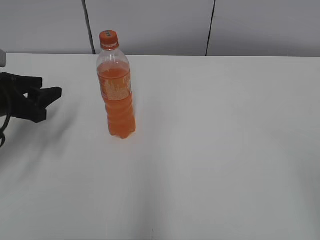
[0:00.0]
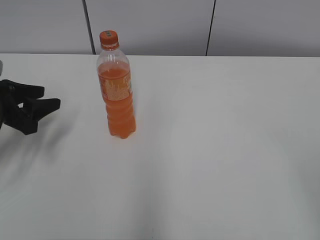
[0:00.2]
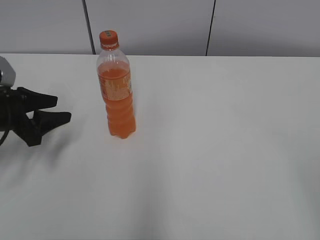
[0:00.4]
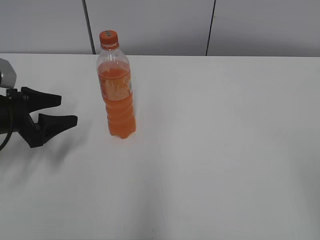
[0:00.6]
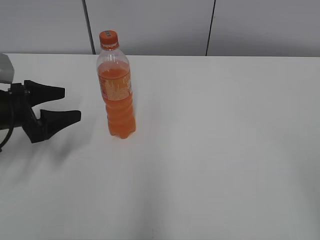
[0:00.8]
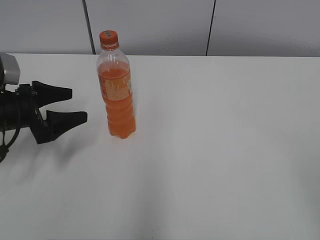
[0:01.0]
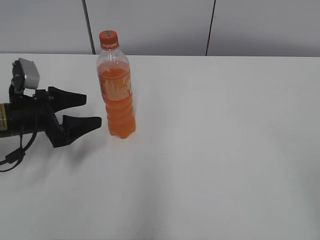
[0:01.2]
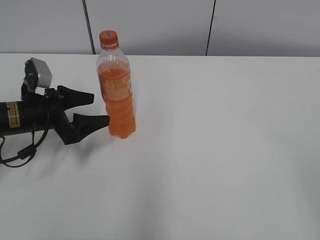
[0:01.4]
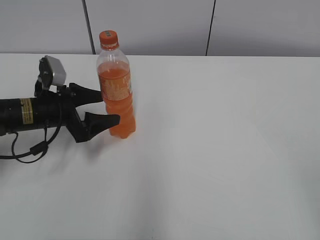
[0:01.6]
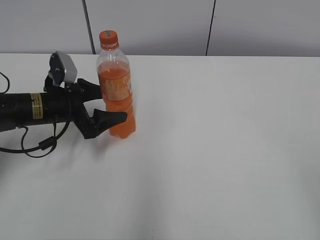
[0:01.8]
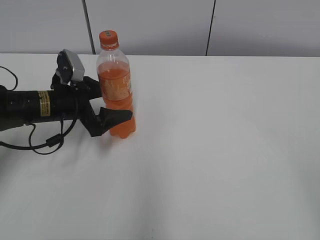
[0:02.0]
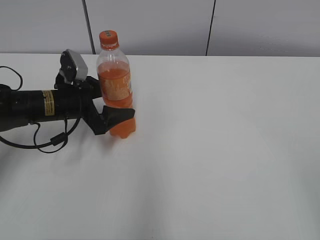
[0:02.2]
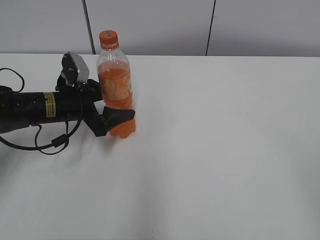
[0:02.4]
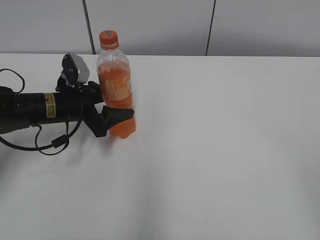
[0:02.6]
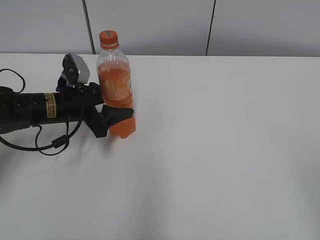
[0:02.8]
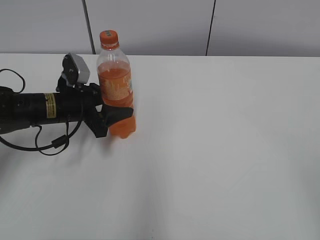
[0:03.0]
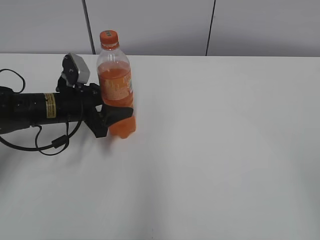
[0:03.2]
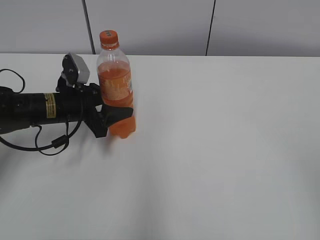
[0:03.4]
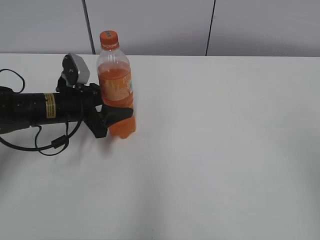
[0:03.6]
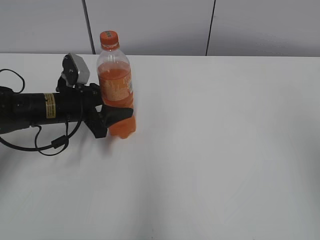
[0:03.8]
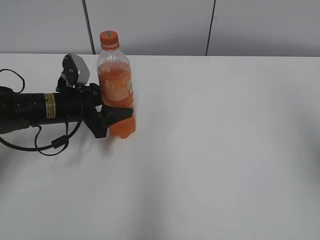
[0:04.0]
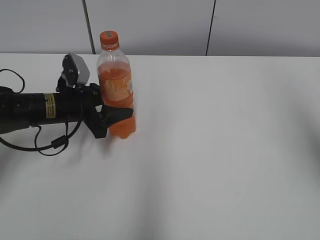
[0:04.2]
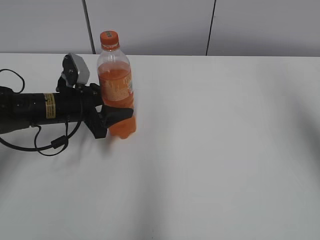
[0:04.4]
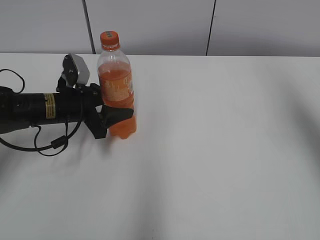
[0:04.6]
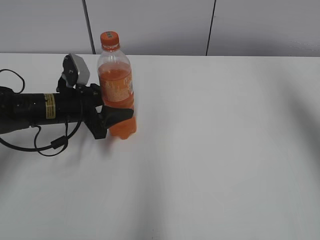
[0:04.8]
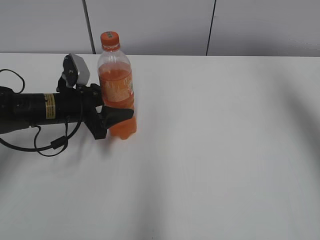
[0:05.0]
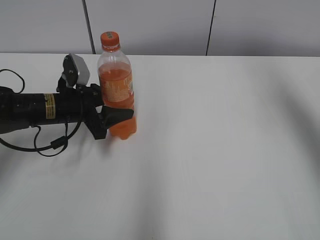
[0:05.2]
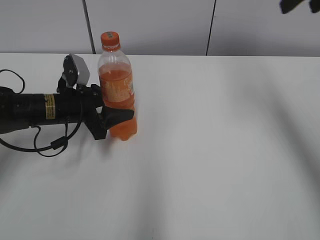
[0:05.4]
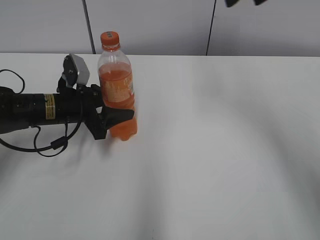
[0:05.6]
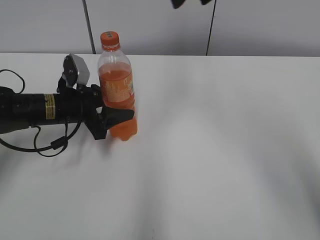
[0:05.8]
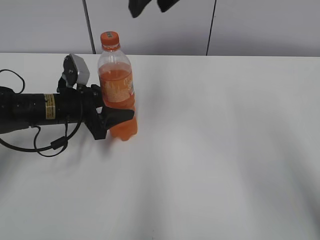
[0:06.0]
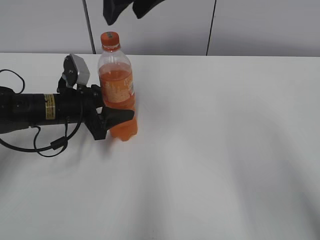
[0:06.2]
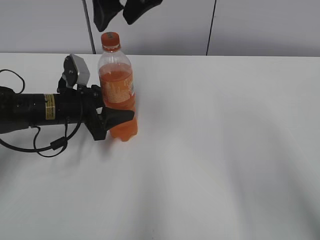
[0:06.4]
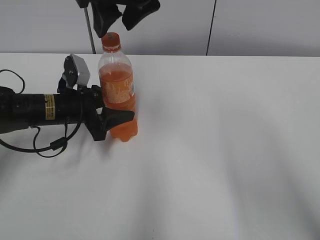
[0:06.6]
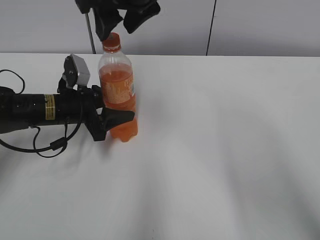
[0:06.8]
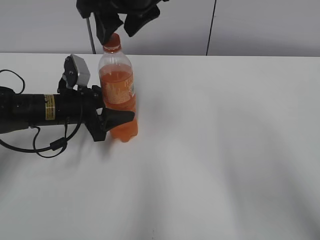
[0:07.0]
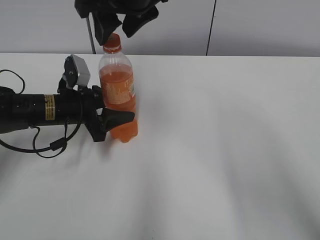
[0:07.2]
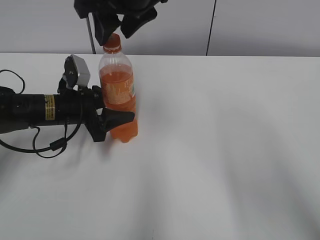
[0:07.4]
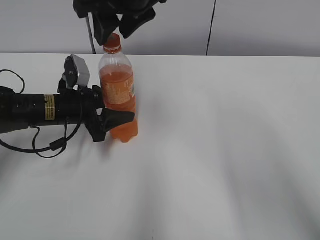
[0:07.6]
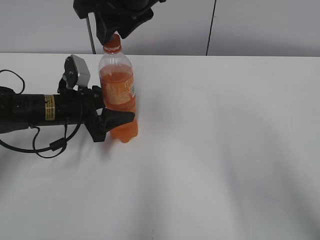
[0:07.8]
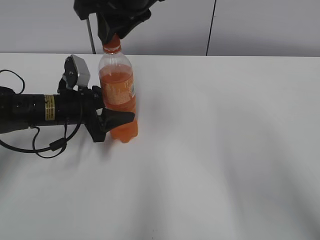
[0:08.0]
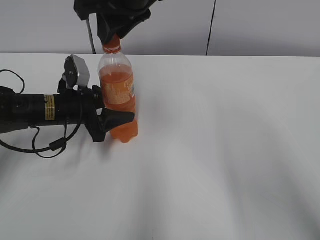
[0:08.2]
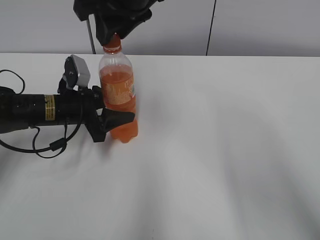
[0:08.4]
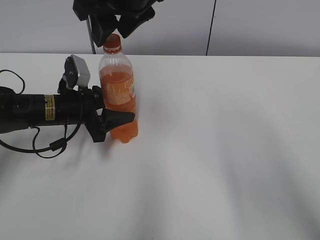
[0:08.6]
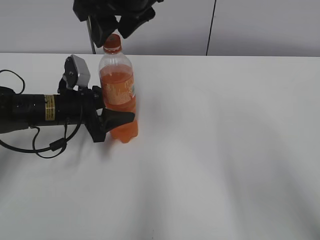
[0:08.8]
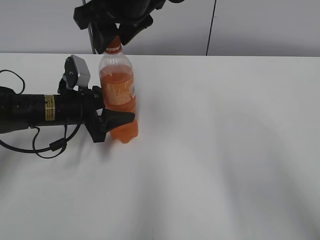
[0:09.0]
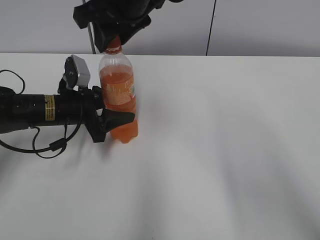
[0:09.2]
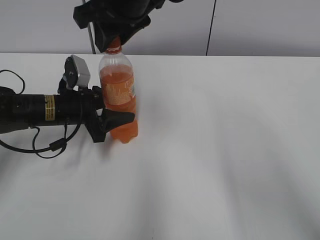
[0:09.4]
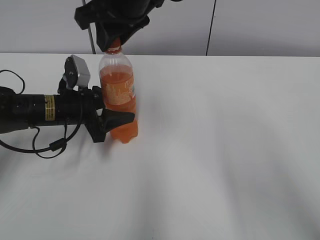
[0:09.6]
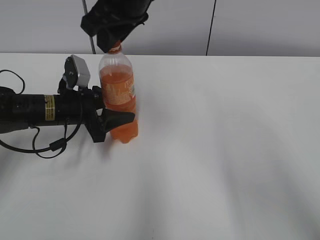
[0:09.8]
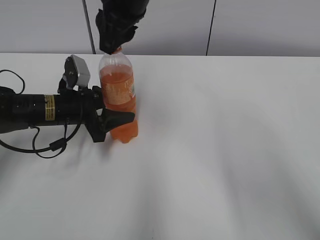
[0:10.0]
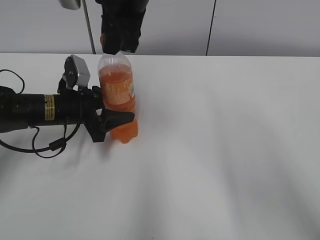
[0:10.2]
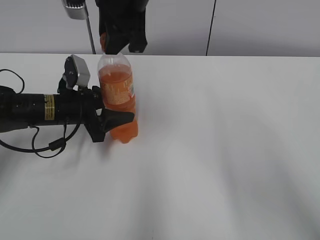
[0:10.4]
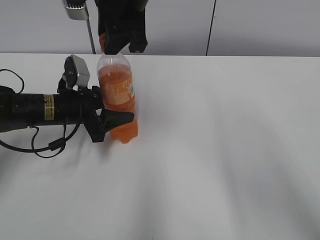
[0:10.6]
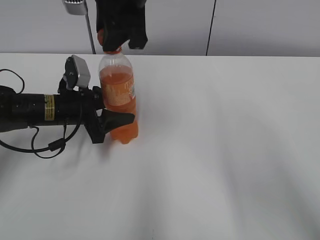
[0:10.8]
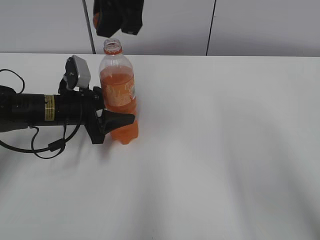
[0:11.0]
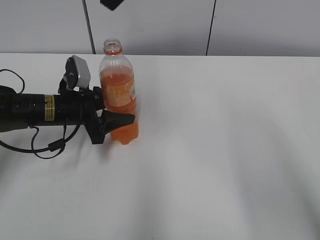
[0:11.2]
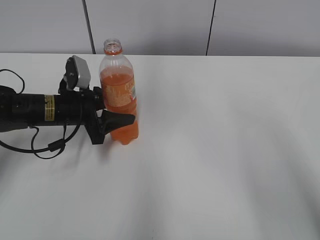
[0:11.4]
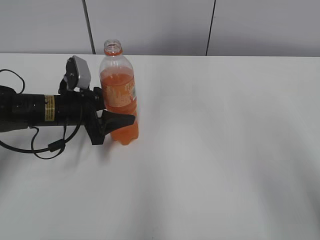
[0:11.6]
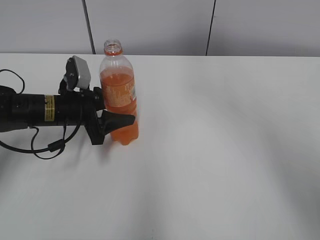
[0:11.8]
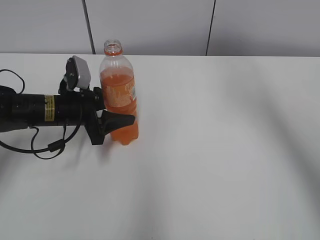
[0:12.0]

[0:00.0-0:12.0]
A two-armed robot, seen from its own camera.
Step, 0.0 to 3.2 s: Grab the Mirinda with the left hand.
0.0 to 1.6 s: The left gripper travels to the right by some 5 cm, and opens up.
1.6 to 3.0 s: The left gripper closes up.
3.0 to 4.4 s: The right gripper travels forward and upward by approximately 25 cm.
4.4 to 6.0 s: The right gripper is displaced to the left and forward by some 30 cm.
6.0 to 7.6 s: The right gripper travels to the left by approximately 5 cm.
7.6 to 9.0 s: The right gripper closes, then reopens.
9.0 to 10.4 s: The right gripper closes its fingers.
10.4 to 12.0 s: The right gripper goes roughly 25 cm to the right and upward.

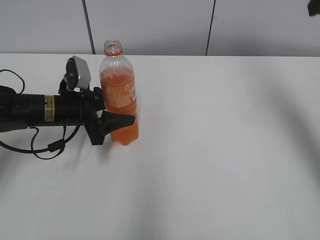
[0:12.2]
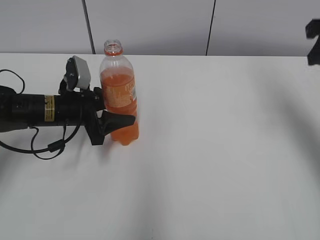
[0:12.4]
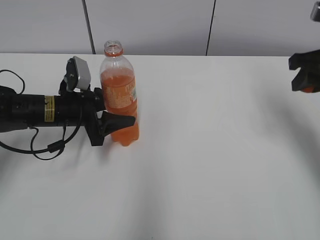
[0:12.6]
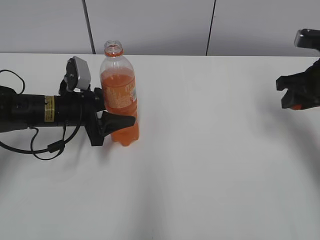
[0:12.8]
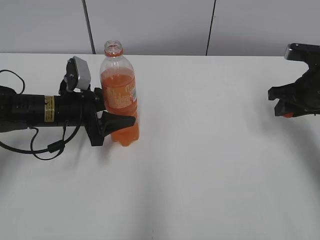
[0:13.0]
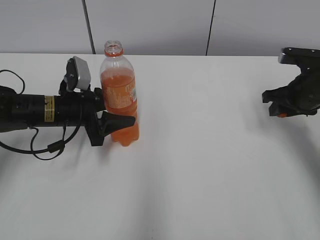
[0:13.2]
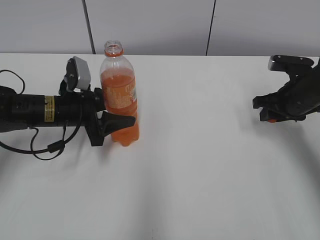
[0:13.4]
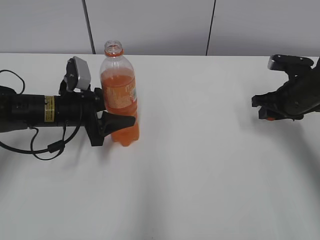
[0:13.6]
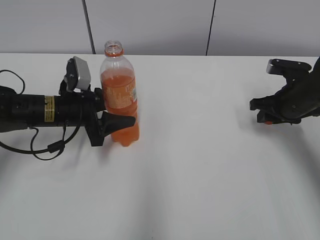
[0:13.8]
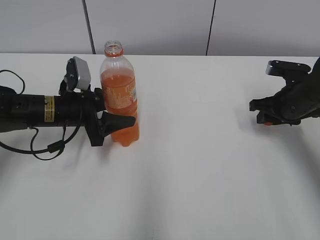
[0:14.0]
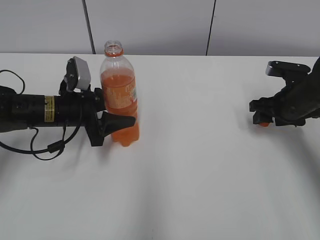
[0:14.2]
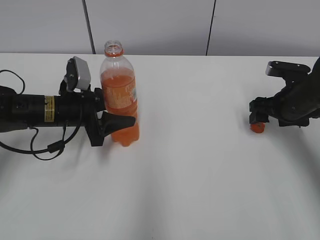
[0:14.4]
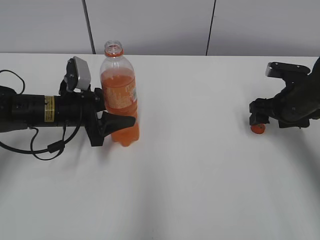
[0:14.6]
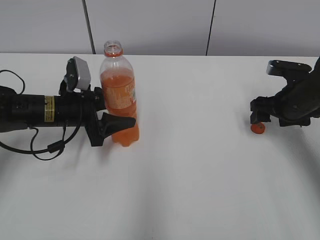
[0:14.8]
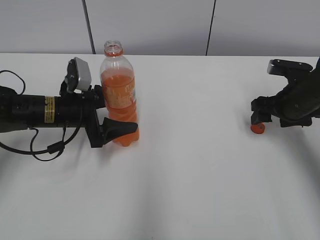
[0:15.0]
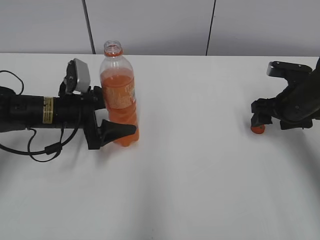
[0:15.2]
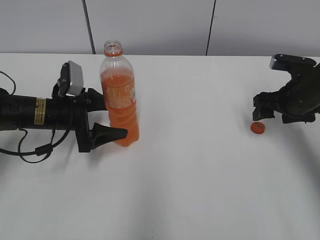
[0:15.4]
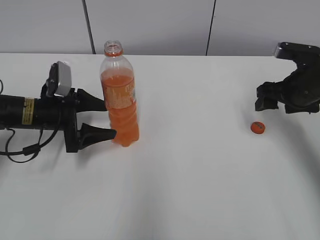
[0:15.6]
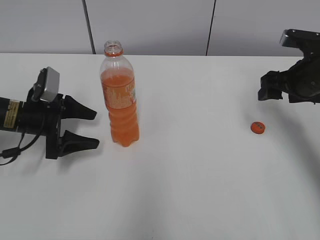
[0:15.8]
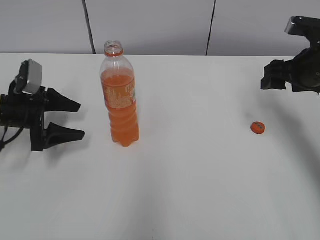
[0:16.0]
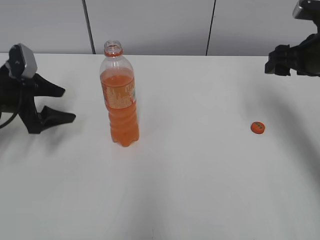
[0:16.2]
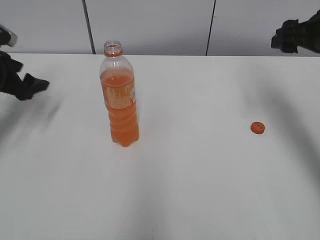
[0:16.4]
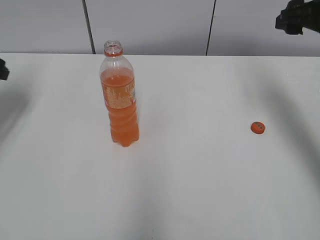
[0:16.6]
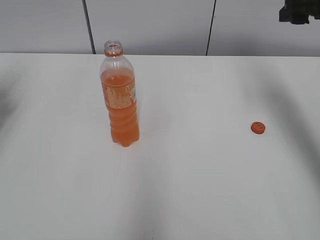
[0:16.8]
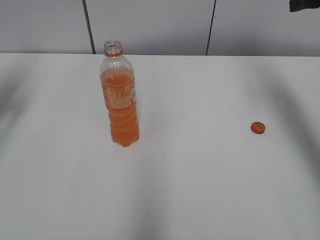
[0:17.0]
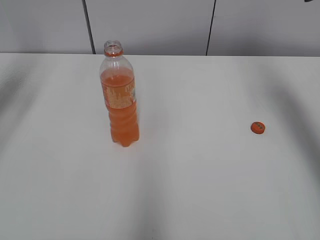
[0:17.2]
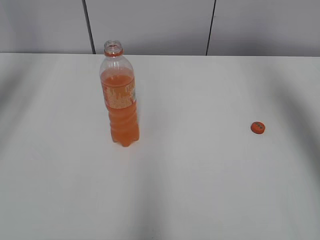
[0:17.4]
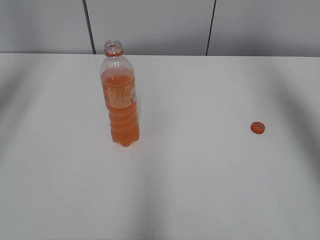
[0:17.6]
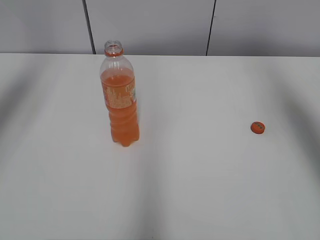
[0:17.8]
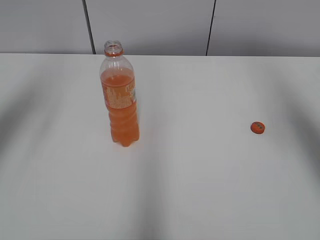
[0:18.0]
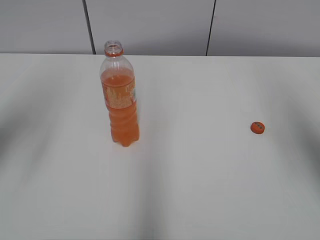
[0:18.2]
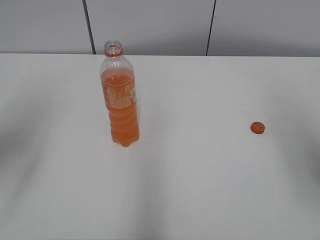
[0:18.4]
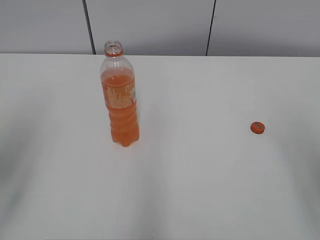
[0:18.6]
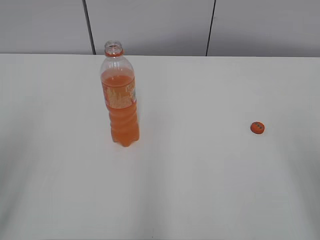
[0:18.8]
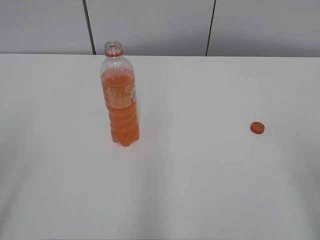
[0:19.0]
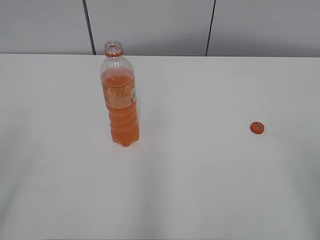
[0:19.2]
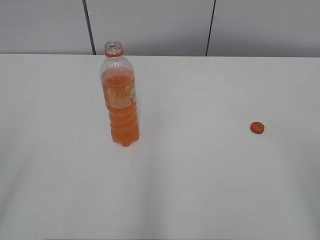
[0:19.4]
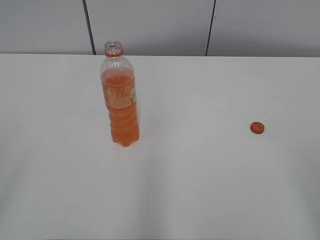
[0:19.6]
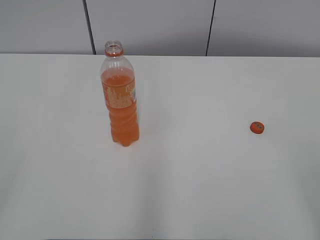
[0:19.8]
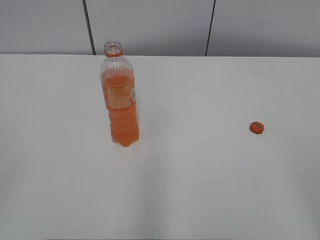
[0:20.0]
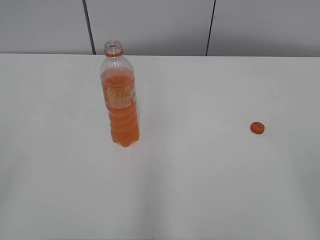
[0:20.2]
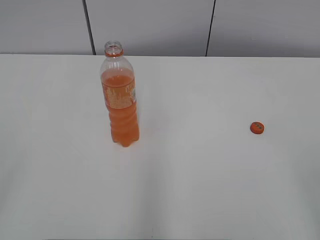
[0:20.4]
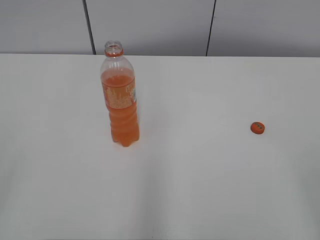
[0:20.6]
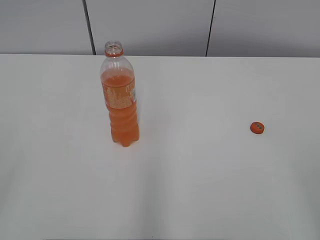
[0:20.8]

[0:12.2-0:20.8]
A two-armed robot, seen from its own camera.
Step, 12.2 to 14.4 s: Place the bottle cap on the right.
12.2 to 13.6 s: The right gripper is displaced downward by about 25 cm.
13.6 to 15.0 s: The right gripper opens. The left gripper opens its fingers.
15.0 to 16.6 s: The right gripper shifts about 15 cm upward. The left gripper is displaced to the left and upward by about 20 cm.
16.6 to 18.0 s: The right gripper moves upward and backward, approximately 15 cm. Meanwhile the left gripper goes roughly 20 cm upward, to the right and backward.
18.0 to 19.4 s: The right gripper moves backward and downward, roughly 25 cm; the left gripper shifts about 25 cm backward.

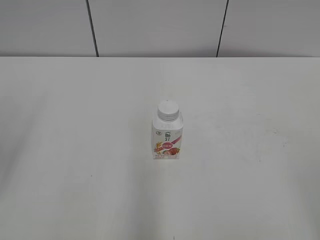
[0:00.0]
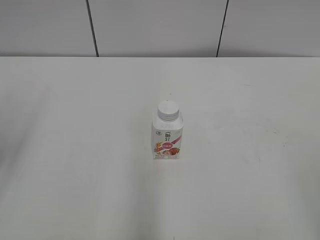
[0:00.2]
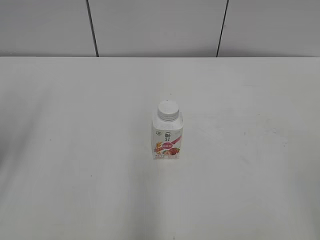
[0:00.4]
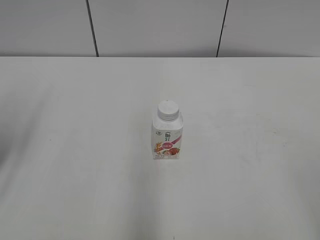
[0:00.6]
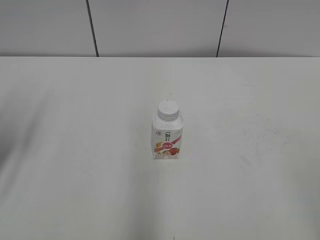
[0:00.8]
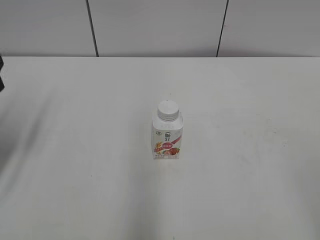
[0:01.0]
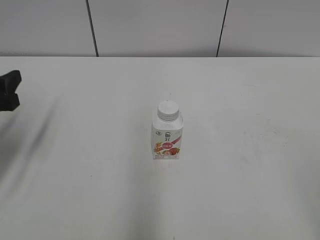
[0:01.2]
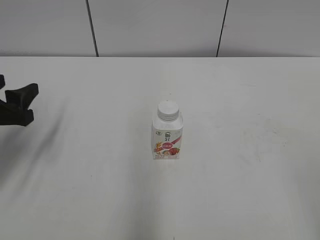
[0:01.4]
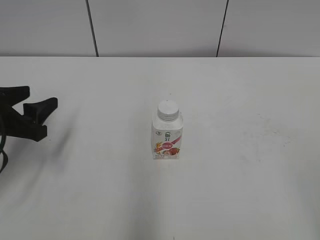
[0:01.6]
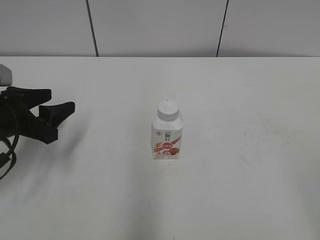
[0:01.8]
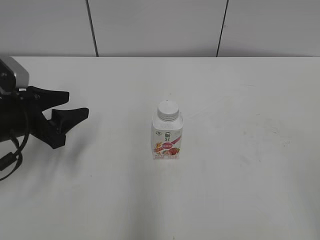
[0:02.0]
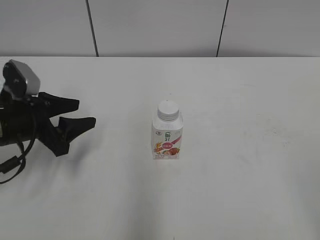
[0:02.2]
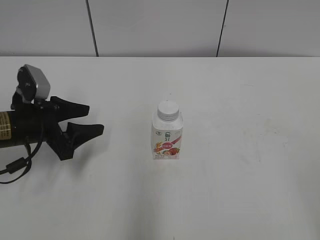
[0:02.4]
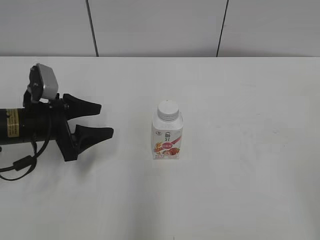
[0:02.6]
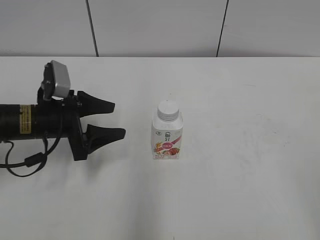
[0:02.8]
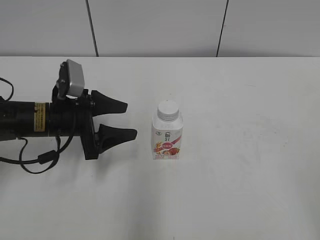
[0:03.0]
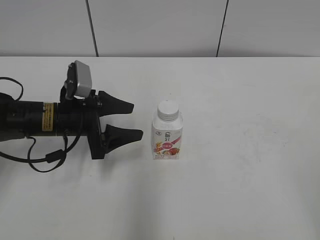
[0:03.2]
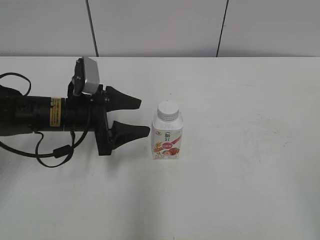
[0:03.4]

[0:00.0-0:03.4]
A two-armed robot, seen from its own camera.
0.0 to 1.6 s: The left gripper moves downward and forward, roughly 20 cm, and closes its fingers.
1.6 to 3.4 s: The left gripper travels to the right and forward by some 15 cm, and opens up.
